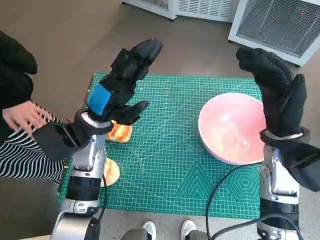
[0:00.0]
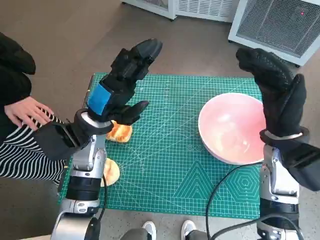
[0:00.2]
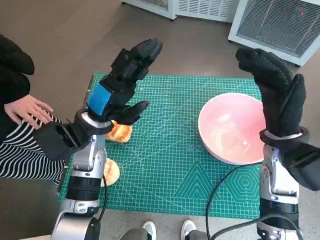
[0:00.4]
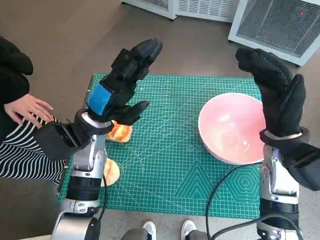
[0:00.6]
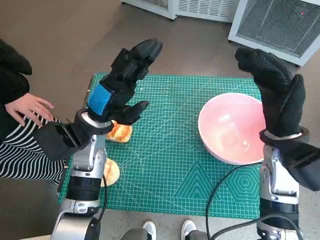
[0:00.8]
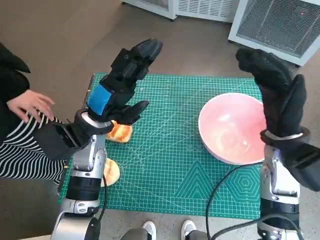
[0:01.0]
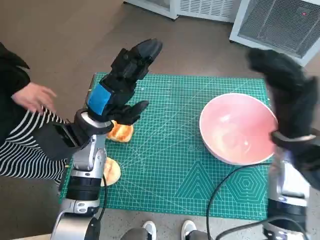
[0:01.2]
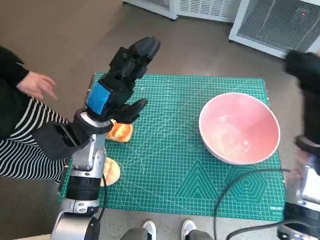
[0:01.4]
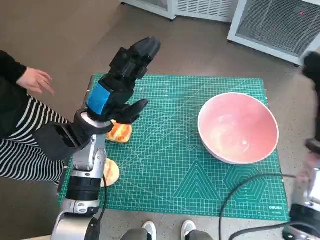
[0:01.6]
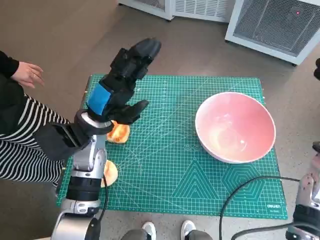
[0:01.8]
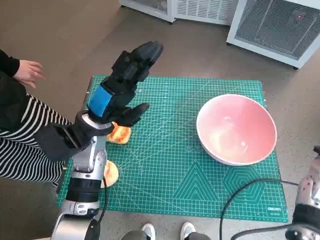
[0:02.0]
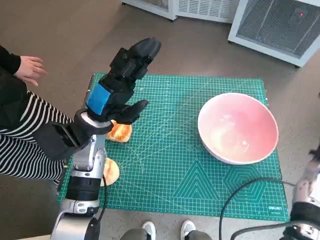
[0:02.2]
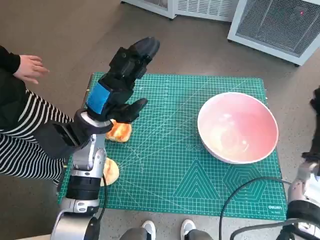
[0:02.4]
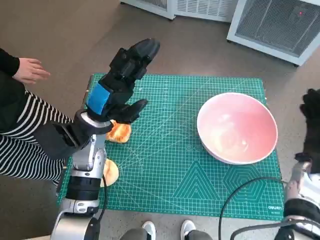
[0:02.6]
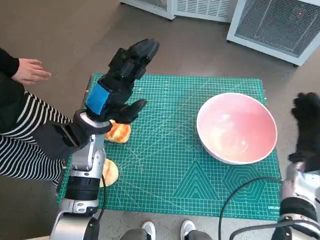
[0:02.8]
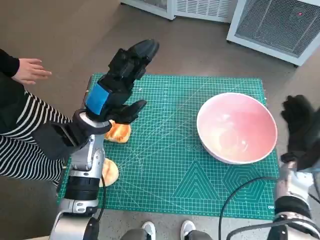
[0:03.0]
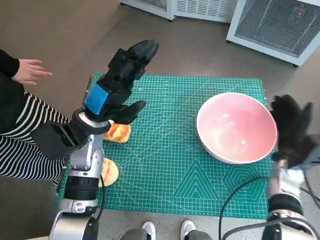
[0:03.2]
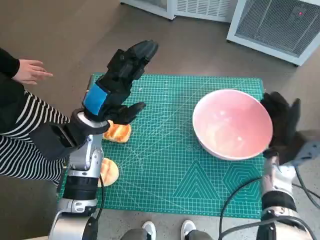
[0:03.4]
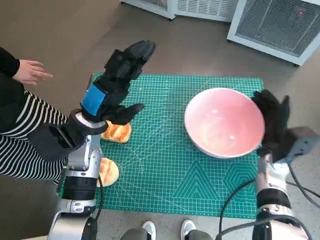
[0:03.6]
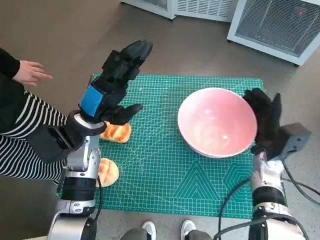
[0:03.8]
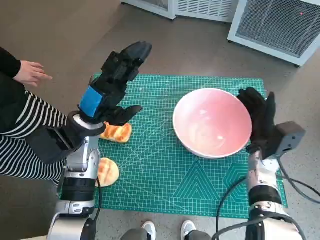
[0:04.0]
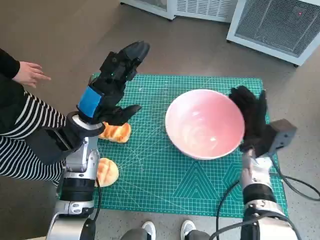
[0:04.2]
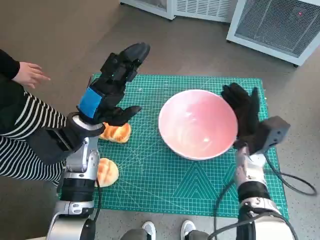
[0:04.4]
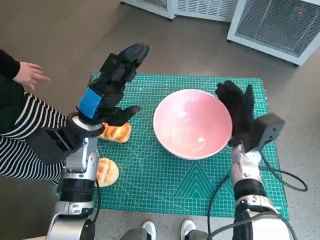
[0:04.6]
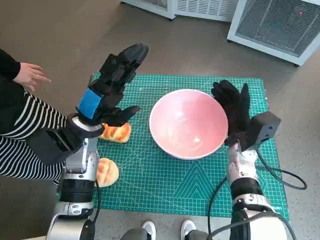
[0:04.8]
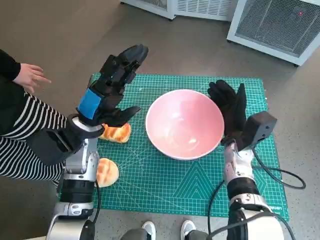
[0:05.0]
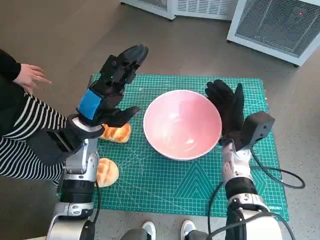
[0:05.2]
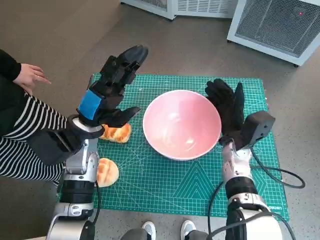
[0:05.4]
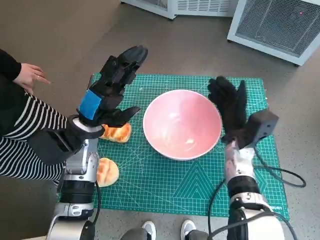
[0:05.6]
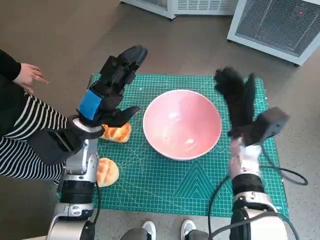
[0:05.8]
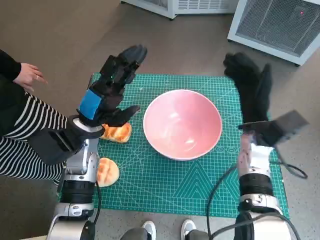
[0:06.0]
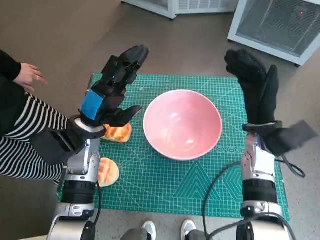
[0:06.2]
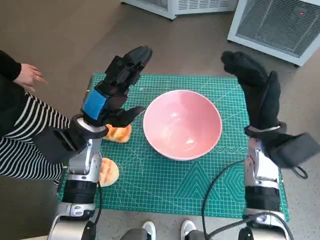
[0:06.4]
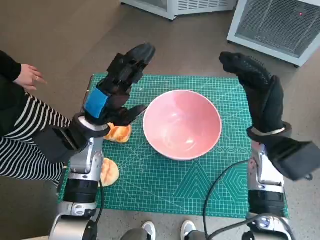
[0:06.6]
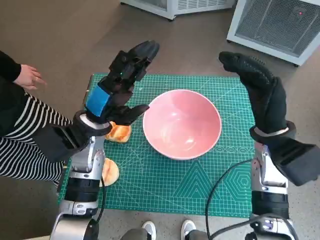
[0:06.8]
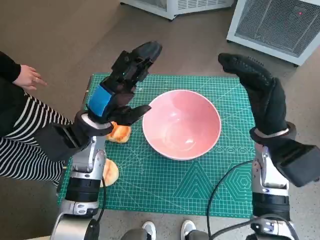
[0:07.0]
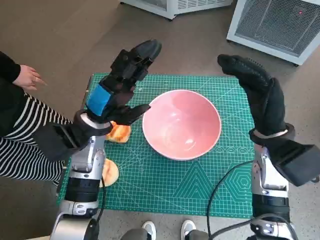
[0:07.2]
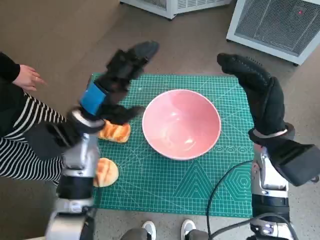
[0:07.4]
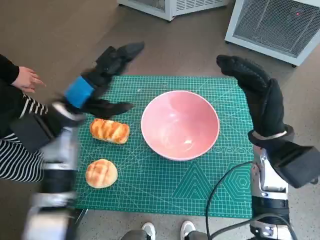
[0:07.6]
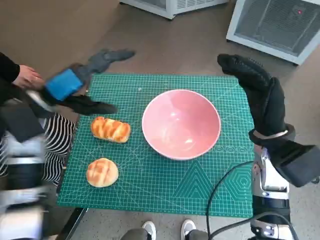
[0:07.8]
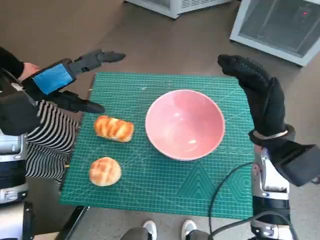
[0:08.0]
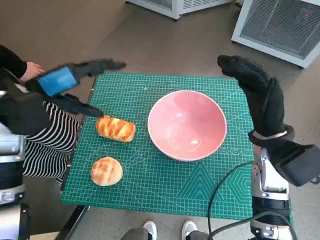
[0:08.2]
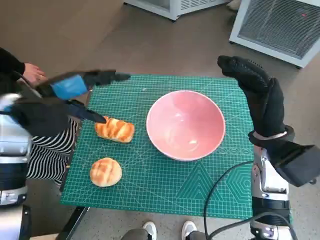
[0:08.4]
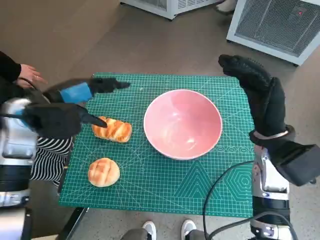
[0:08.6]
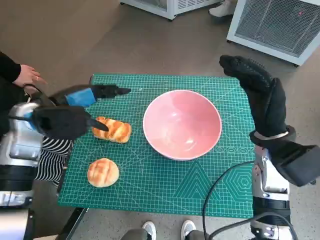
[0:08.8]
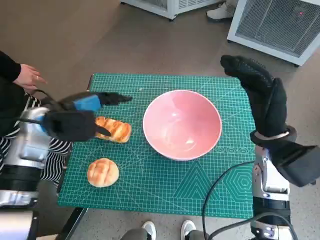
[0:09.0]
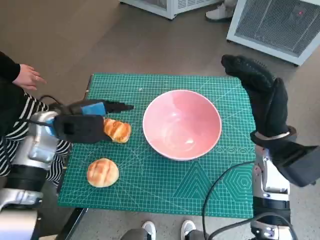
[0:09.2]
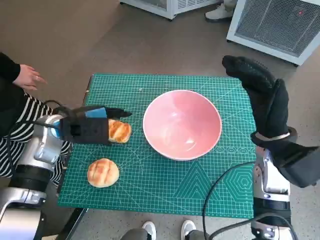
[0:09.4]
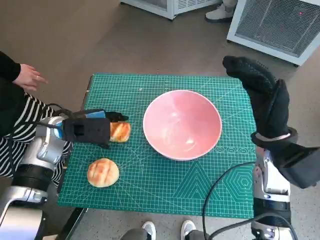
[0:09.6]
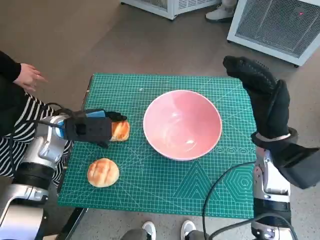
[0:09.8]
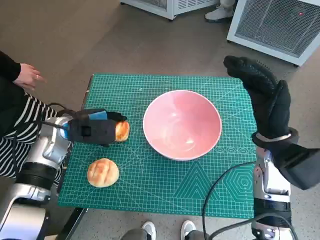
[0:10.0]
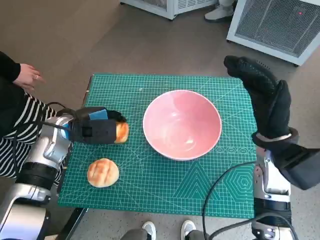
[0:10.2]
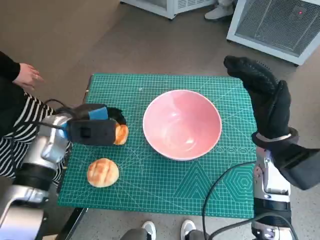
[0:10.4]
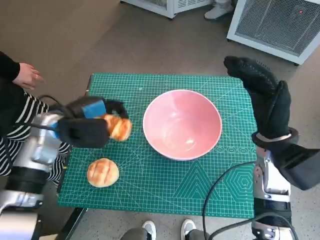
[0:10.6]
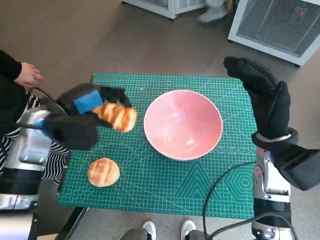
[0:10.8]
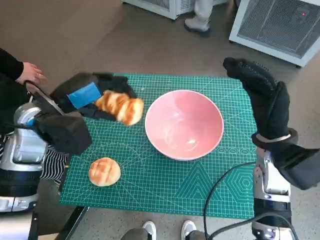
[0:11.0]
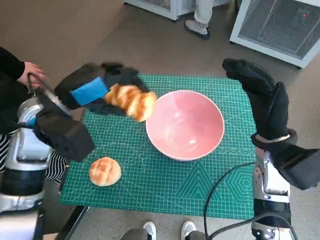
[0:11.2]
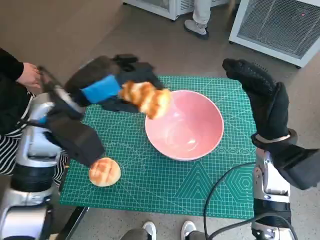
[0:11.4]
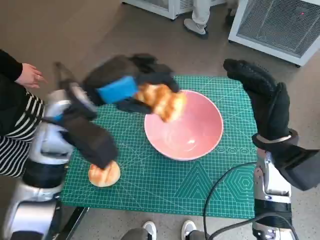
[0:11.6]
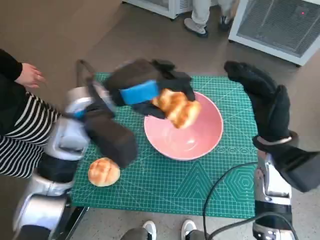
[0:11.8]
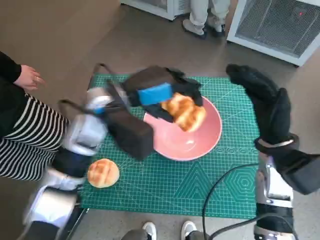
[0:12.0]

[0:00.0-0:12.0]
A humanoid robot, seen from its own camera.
Task of the whole recording: Push the bowl into the center of the table and put the bread into the bowl.
Step, 0:00.0 to 0:05.6: Move the pink bowl to the center of table with right hand.
Step, 0:05.8 to 0:10.2: Grasp the long bread with left hand.
0:01.6 to 0:03.0: The right hand shifts about 10 cm downward.
0:03.0 to 0:04.4: The right hand is displaced to the left by roughly 10 cm.
0:04.4 to 0:06.0: The right hand shifts by approximately 5 cm.
0:06.0 to 0:07.6: The right hand travels upward by about 5 cm.
0:09.0 to 0:10.4: There are only small adjustments of the hands.
0:10.4 to 0:12.0: The left hand shifts about 15 cm to the right and upward.

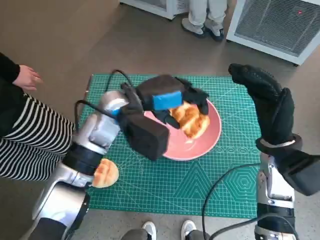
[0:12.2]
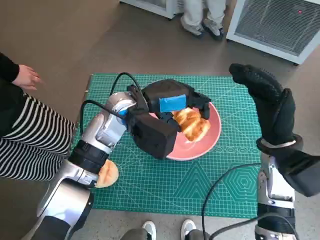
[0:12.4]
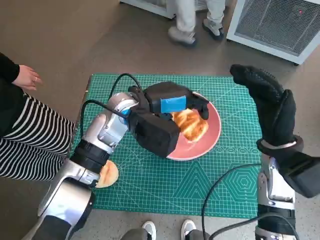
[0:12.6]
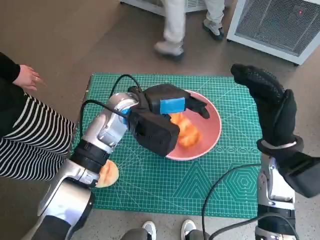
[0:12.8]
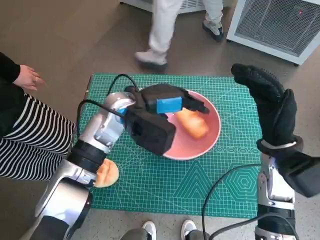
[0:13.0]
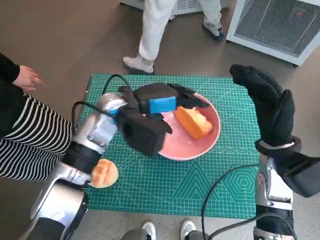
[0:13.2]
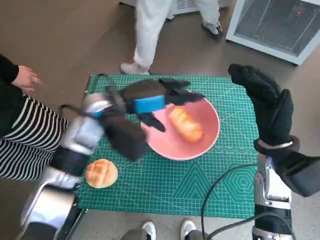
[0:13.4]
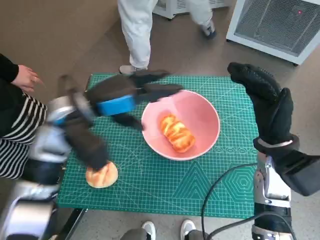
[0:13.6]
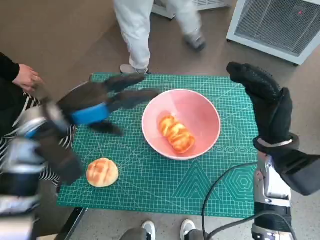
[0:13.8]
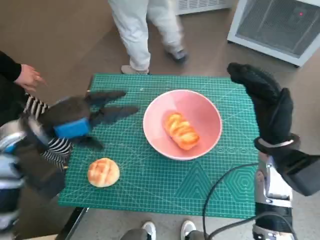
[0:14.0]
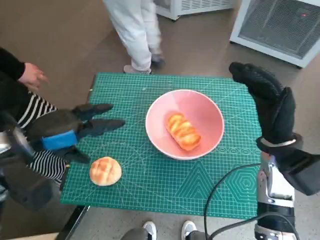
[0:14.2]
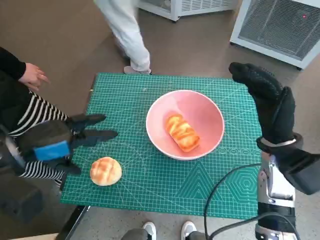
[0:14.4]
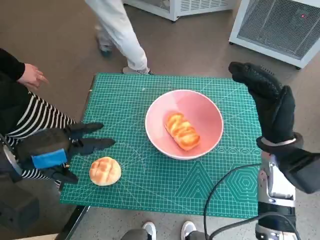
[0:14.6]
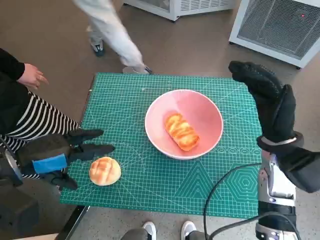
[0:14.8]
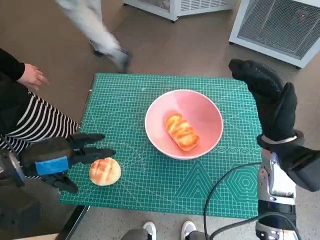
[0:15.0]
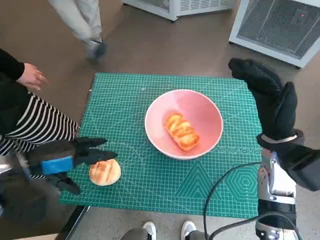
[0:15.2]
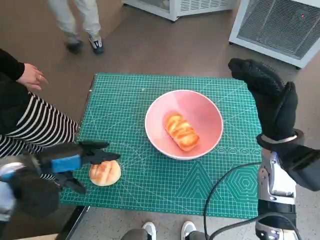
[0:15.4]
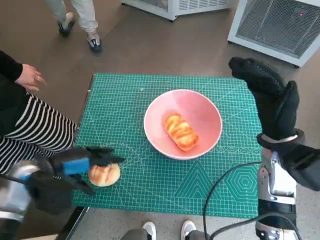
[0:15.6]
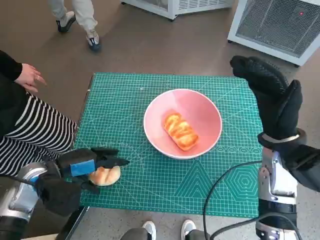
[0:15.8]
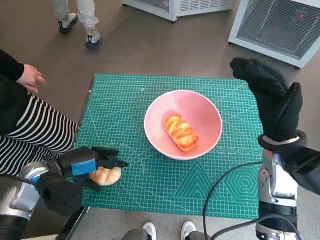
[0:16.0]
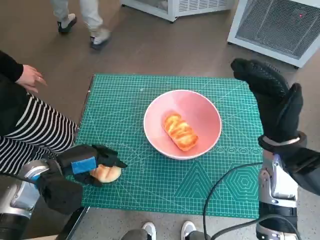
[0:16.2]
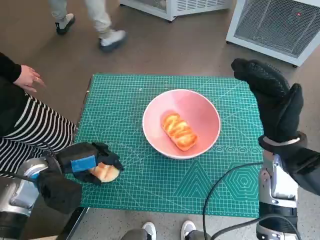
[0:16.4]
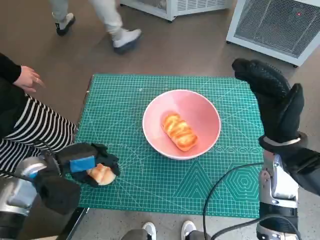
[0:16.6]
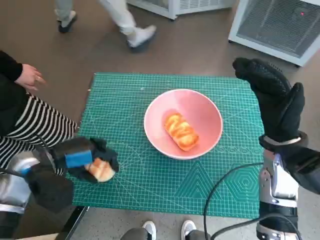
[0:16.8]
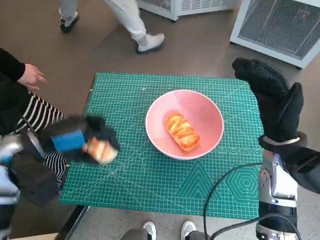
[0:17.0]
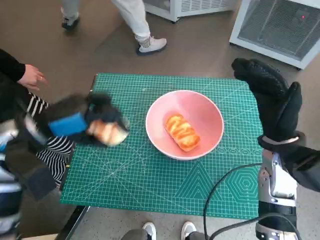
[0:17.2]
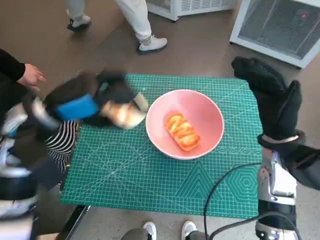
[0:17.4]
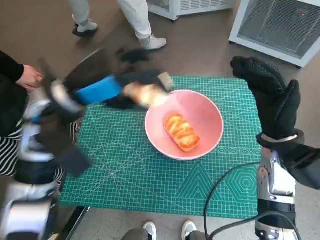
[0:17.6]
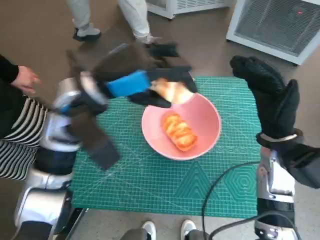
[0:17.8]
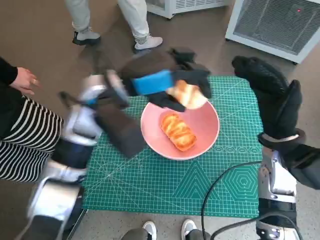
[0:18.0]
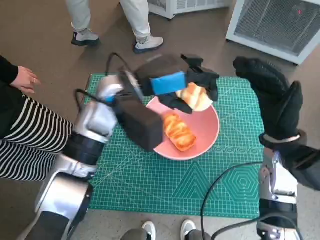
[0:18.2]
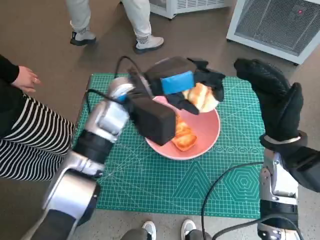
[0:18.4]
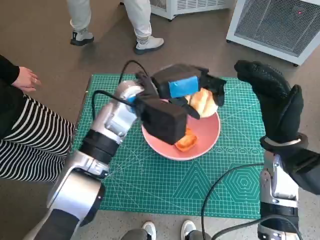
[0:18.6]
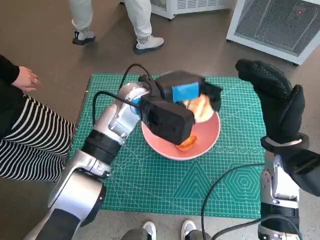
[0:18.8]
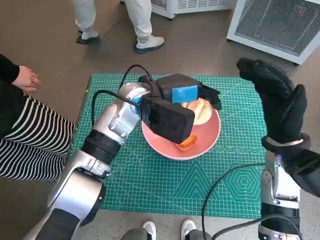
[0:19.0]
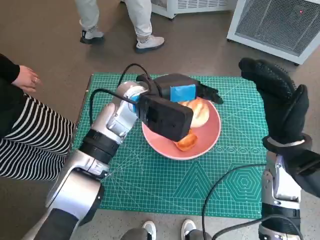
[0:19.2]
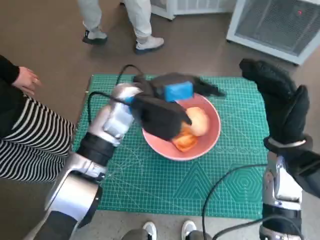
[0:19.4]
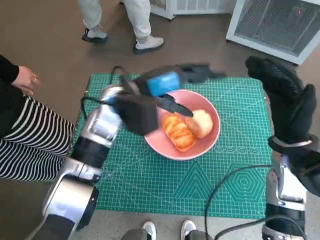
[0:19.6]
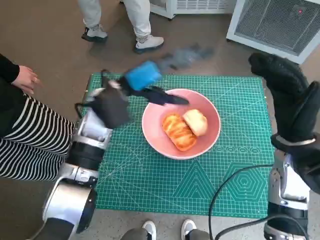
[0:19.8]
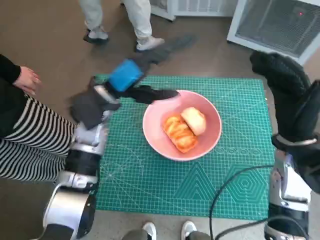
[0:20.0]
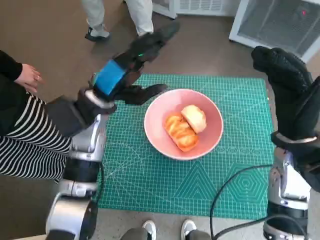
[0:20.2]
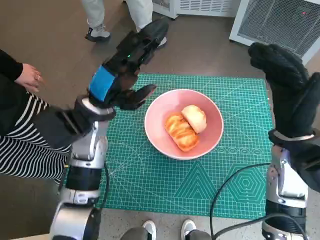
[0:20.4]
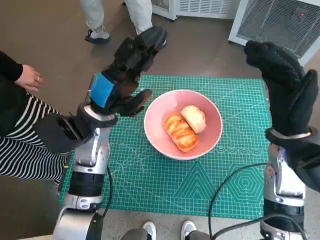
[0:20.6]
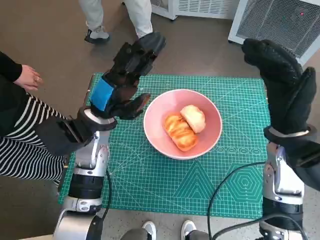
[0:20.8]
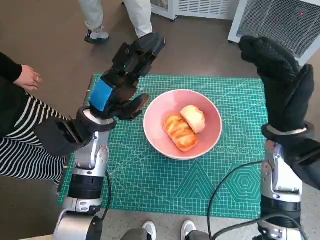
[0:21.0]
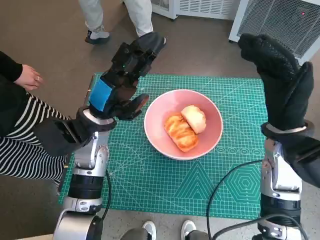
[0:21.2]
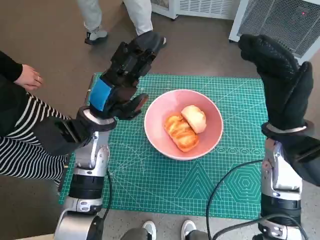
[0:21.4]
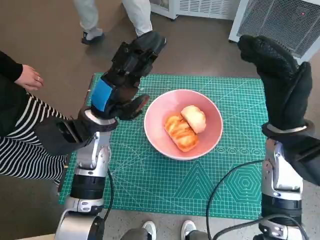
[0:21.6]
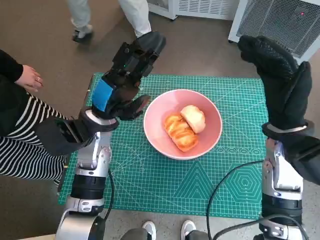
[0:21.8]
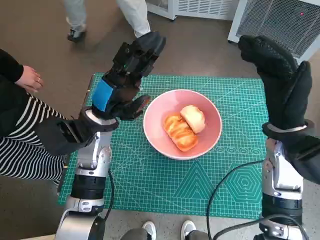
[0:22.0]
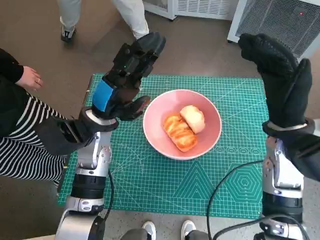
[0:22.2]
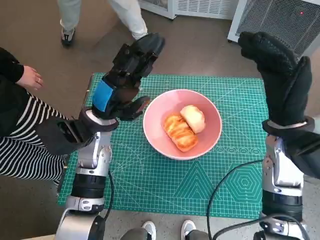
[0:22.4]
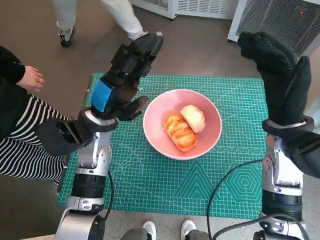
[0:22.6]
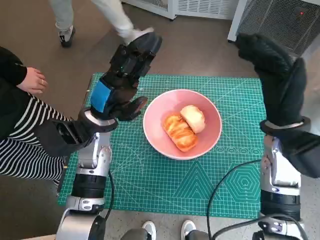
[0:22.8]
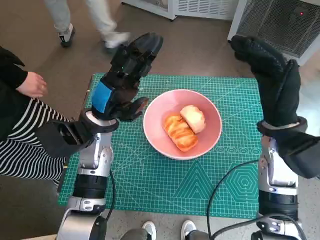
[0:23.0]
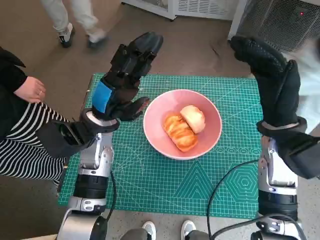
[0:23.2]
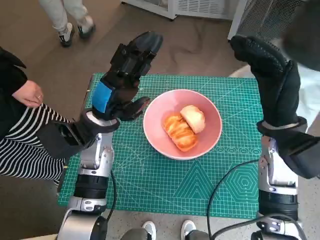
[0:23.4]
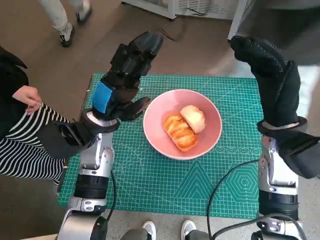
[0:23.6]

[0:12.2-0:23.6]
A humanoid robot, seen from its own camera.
Task of the whole recording: Push the bowl into the center of the table and put the bread into the bowl.
Step, 0:13.6 to 0:16.4: Grasp the round bread with left hand.
Step, 0:16.6 to 0:19.6: Place the round bread in pink bowl with left hand.
0:12.2 to 0:13.6: The left hand travels to the left by approximately 5 cm.
0:13.6 to 0:15.0: The left hand travels to the left and backward by some 15 cm.
0:15.0 to 0:16.4: The left hand goes approximately 5 cm downward.
0:16.4 to 0:17.8: The left hand goes approximately 20 cm upward, to the right and forward.
0:17.8 to 0:19.4: The left hand goes roughly 10 cm to the right and downward.
0:19.4 to 0:20.8: The left hand shifts approximately 10 cm to the left.
0:20.8 to 0:22.2: Both hands stay put.
